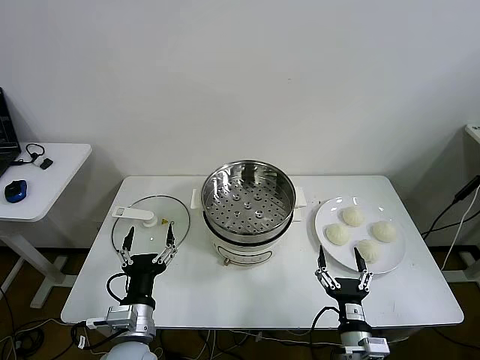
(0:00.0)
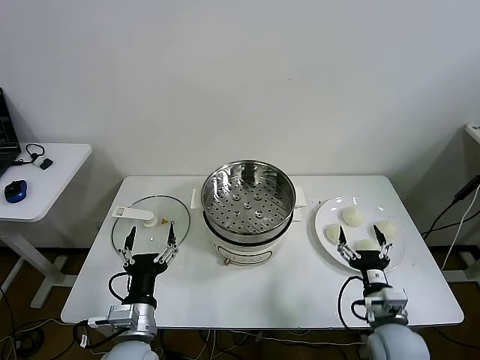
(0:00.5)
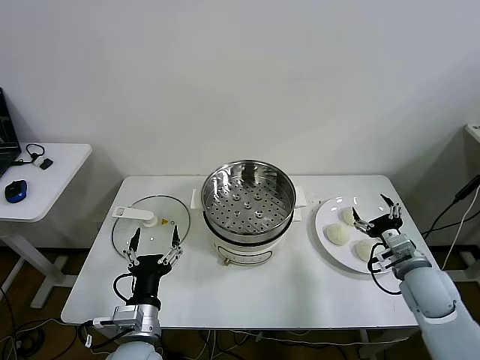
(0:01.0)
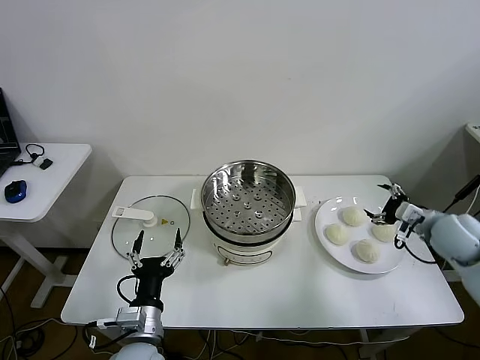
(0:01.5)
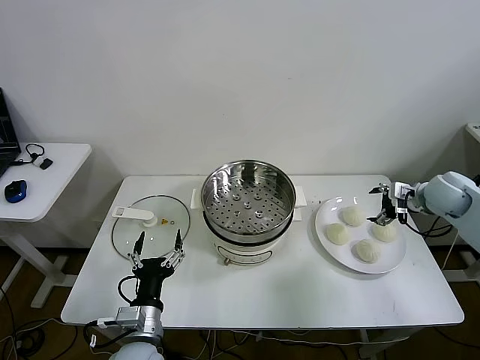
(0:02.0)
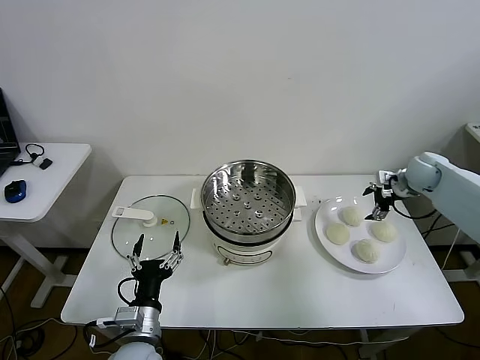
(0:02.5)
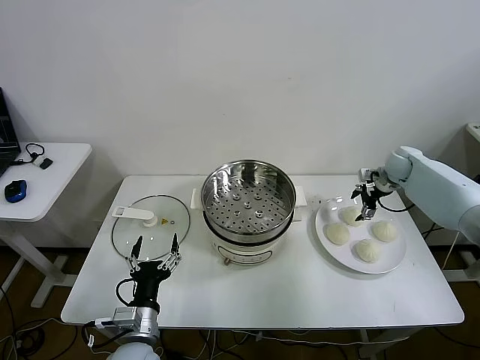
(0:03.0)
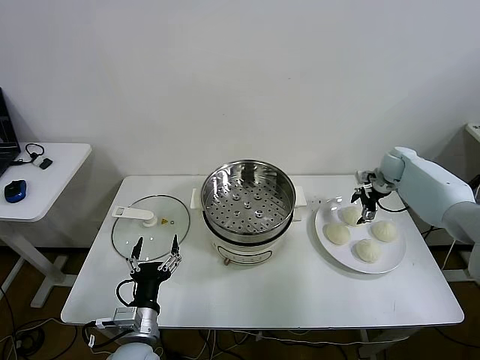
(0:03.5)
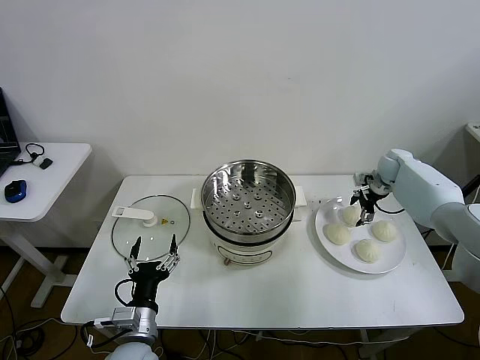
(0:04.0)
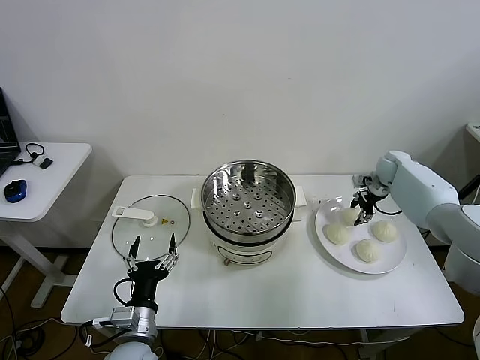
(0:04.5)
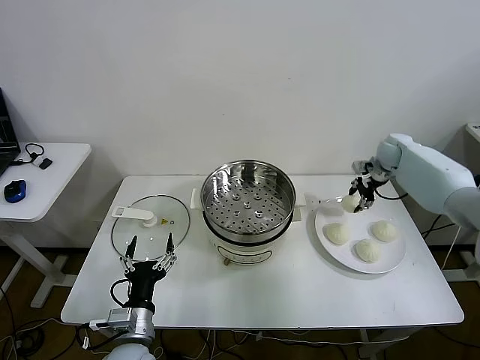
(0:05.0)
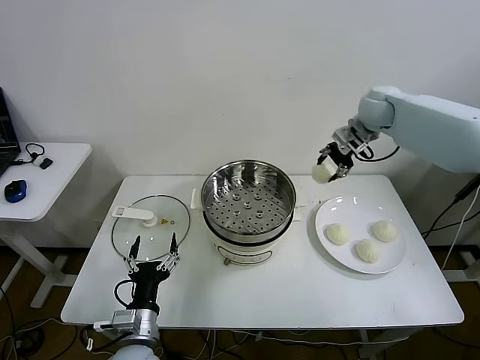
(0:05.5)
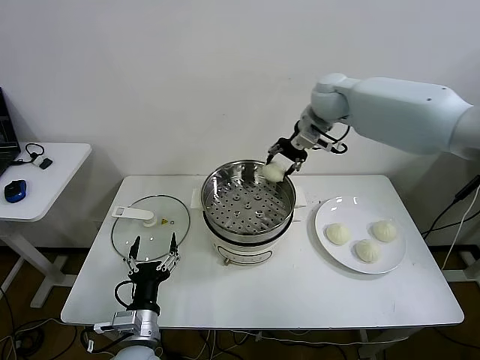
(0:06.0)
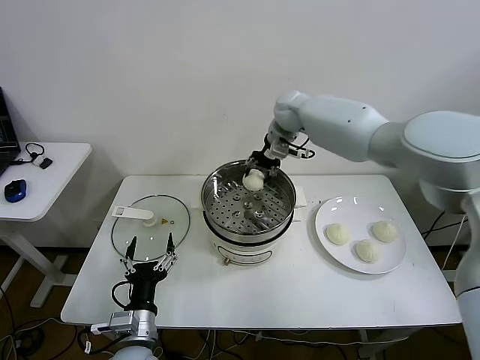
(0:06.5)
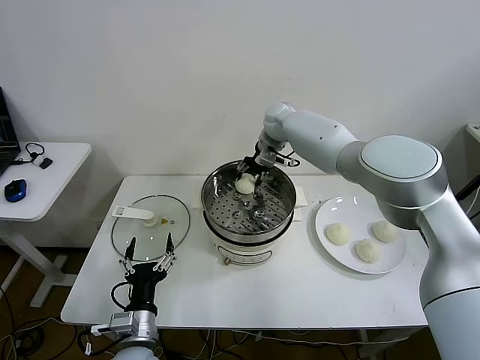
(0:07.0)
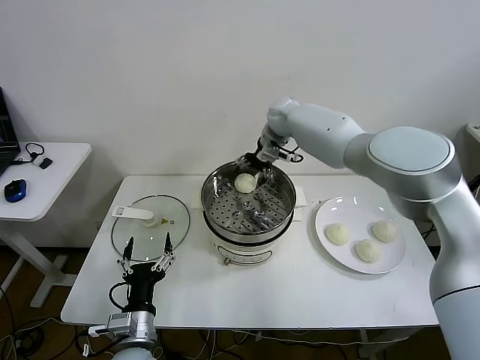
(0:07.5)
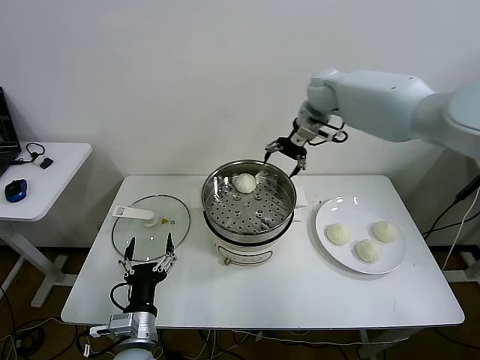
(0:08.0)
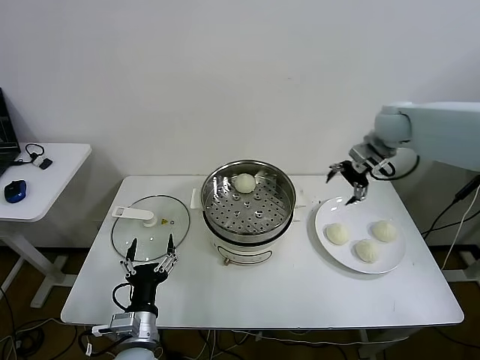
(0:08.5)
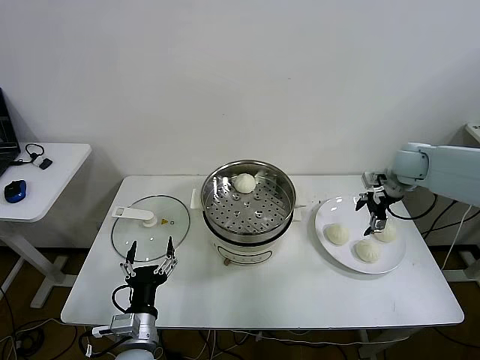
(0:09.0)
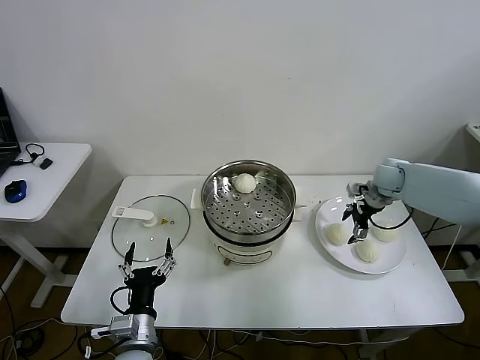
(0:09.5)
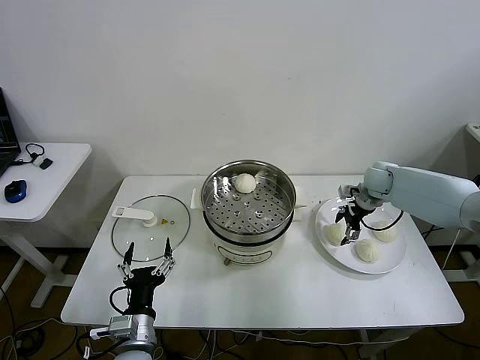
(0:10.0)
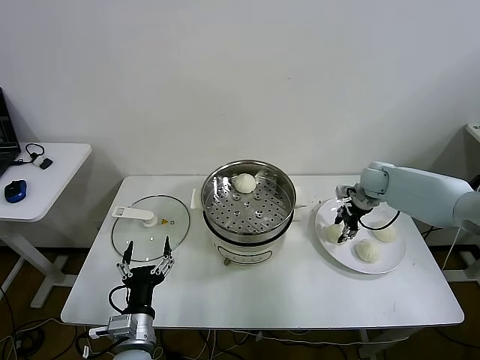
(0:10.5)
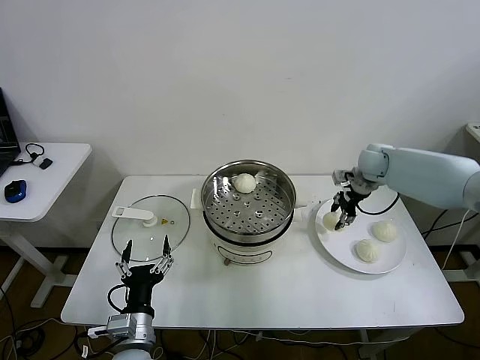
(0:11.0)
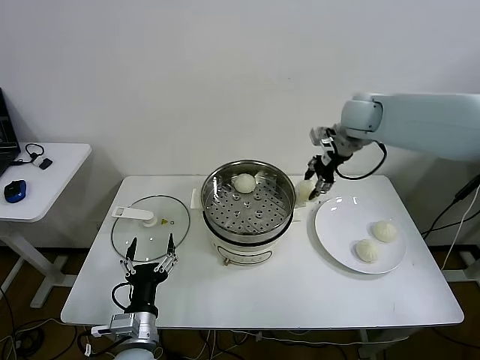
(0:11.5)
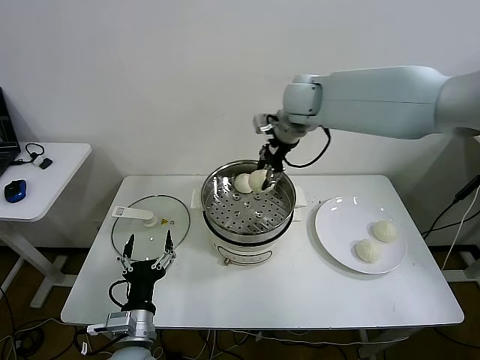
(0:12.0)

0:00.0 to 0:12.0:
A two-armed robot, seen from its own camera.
Step, 0:00.0 to 0:04.5: Grasp the baozi in the plate with right gripper.
Step, 0:05.0 to 0:07.5: Place the baozi on the steamer with right gripper.
Step, 0:08.0 to 0:10.5: Grasp the baozi in the plate with right gripper.
0:02.0 to 0:04.0: The right gripper goes approximately 15 cm forward.
0:04.0 to 0:06.0: The right gripper goes about 30 cm to the left and upward, and closes.
0:06.0 to 0:08.0: The right gripper moves roughly 10 cm downward and comes back, and opens its fingers.
0:08.0 to 0:10.0: The right gripper heads downward and to the right, covering about 30 cm.
0:10.0 to 0:12.0: The right gripper travels to the left and upward by about 35 cm, and closes up.

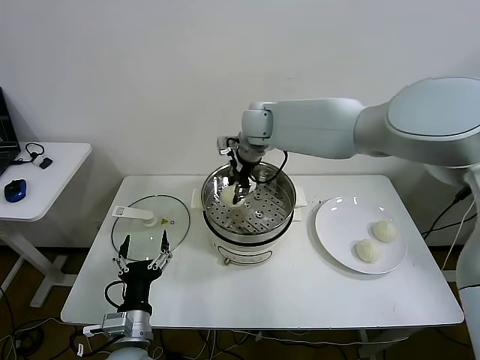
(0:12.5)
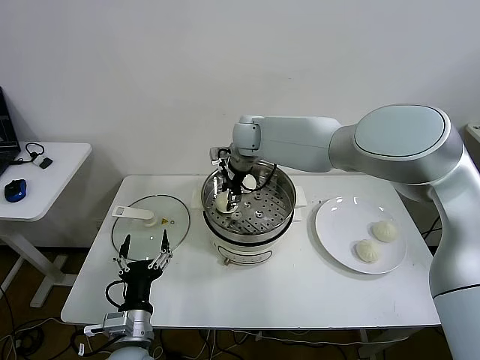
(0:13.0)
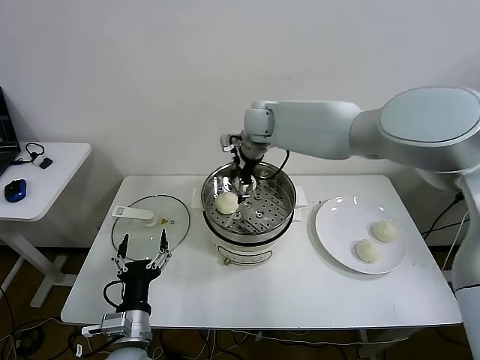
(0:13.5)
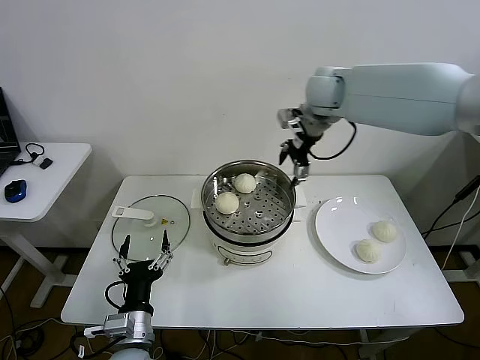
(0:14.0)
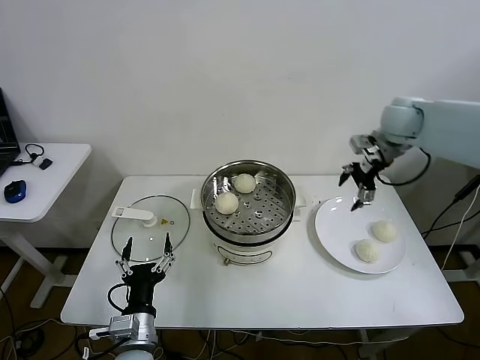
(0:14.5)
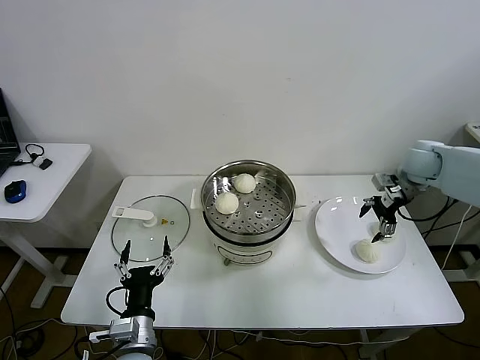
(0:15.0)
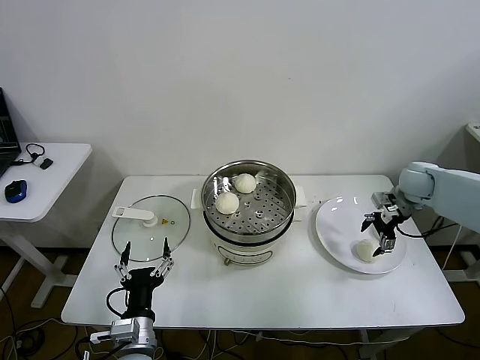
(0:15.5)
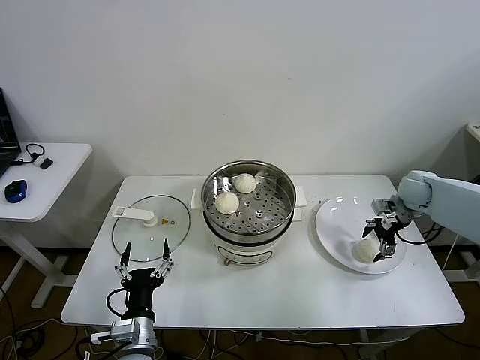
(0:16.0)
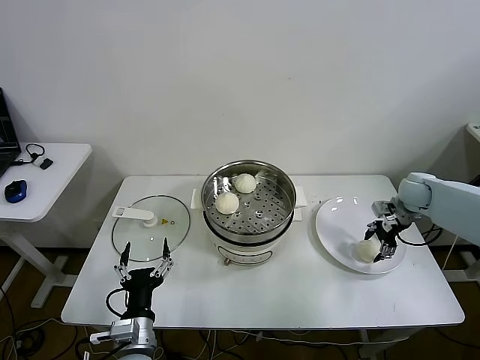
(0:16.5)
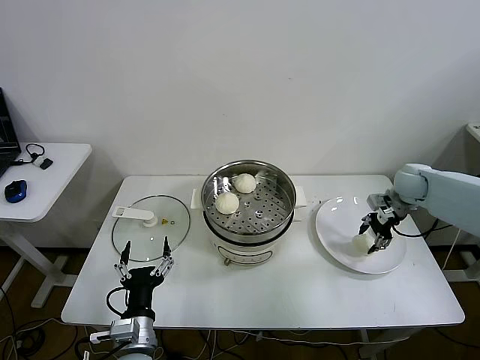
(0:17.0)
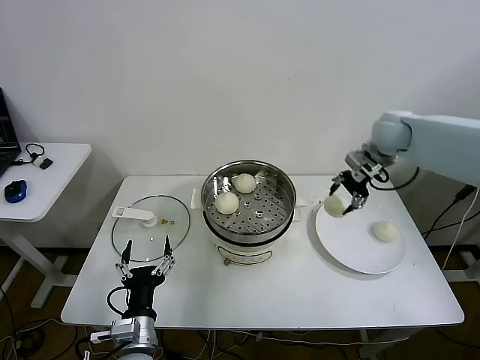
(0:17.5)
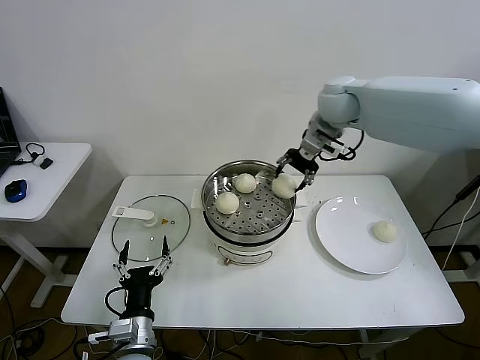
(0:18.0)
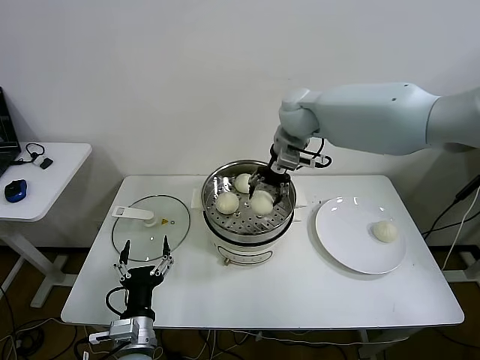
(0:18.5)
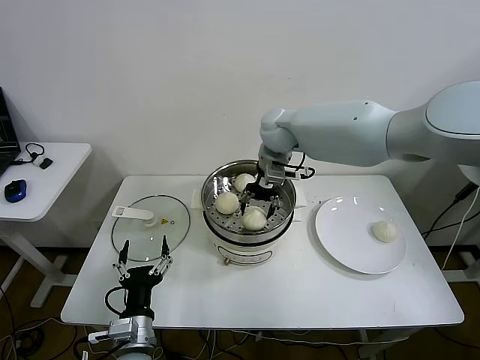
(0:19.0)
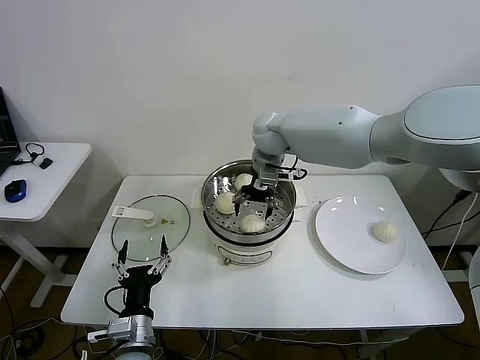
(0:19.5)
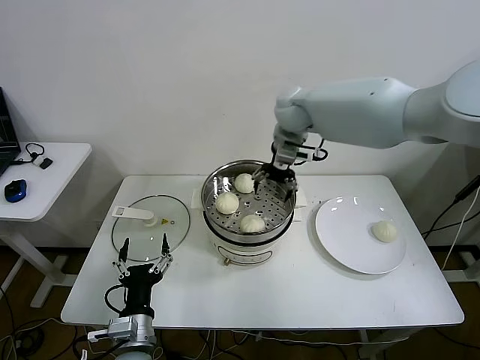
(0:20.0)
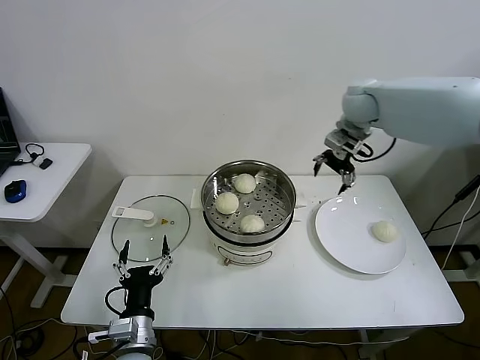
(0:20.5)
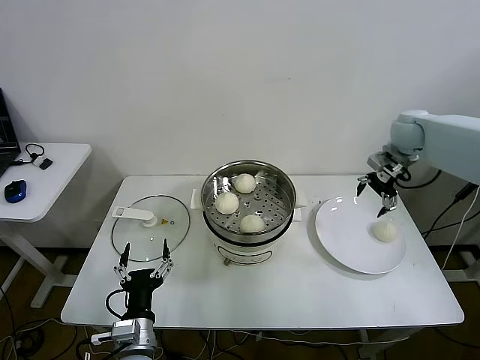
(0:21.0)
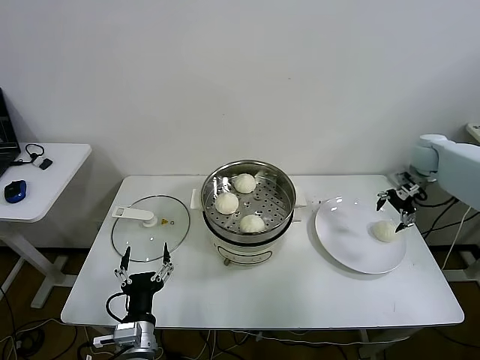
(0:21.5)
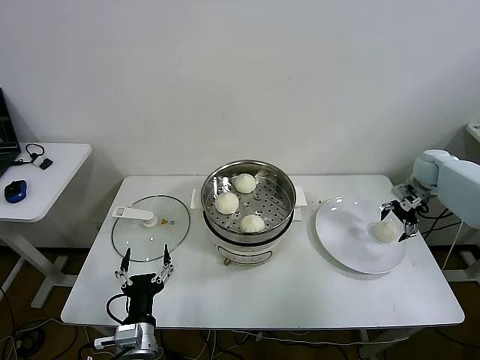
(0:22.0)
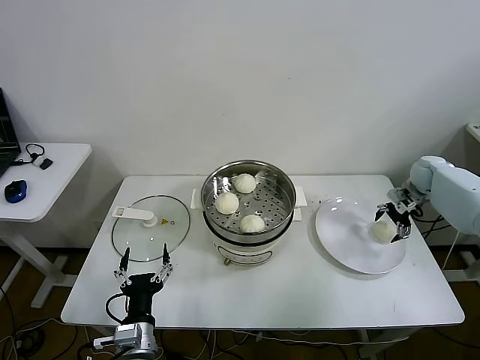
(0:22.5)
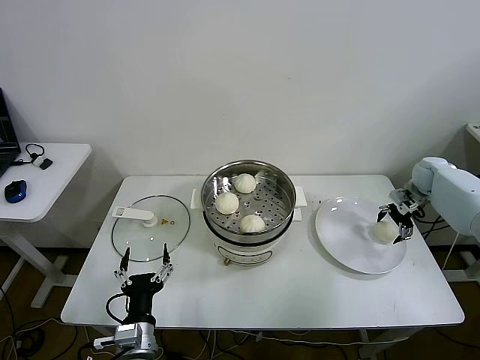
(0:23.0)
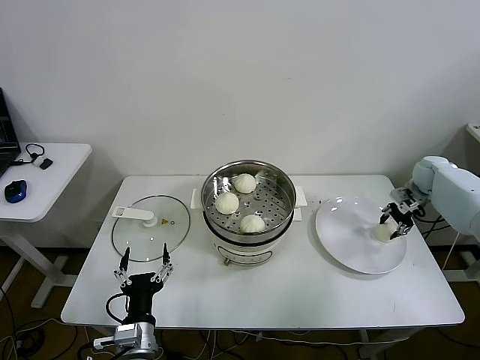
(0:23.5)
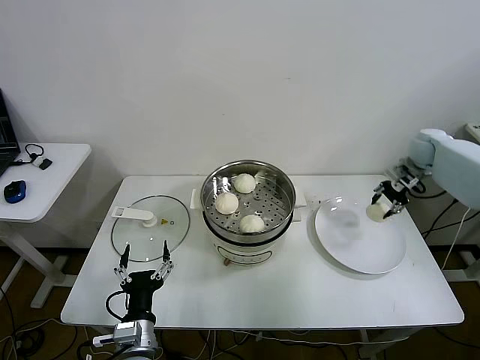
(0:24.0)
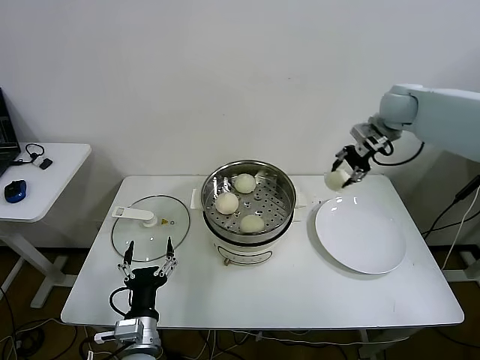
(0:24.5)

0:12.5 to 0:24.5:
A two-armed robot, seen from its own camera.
Step, 0:13.5 to 0:16.5: Grasp the baozi in the plate with right gripper.
Step, 0:17.0 to 0:19.5: Place the baozi on the steamer with right gripper.
Step, 0:20.0 to 0:23.0: Grasp the baozi in the plate with right gripper.
0:12.5 to 0:14.5: The right gripper shifts roughly 30 cm to the right, and opens.
0:14.5 to 0:16.5: The right gripper shifts approximately 20 cm downward and to the right.
0:16.5 to 0:18.5: The right gripper goes some 40 cm to the left and upward.
0:18.5 to 0:20.5: The right gripper goes approximately 15 cm to the right, and opens up.
0:20.5 to 0:22.5: The right gripper travels to the right and downward by some 30 cm.
0:22.5 to 0:24.5: The right gripper travels upward and to the left by some 25 cm, and closes.

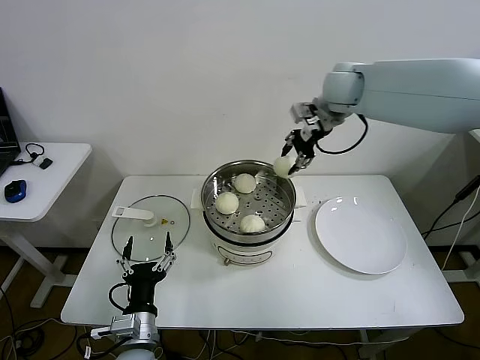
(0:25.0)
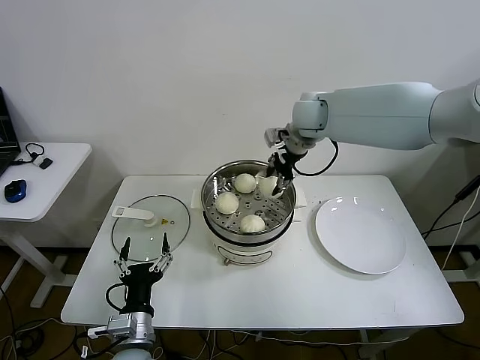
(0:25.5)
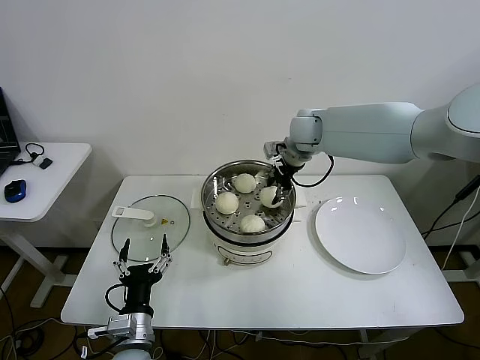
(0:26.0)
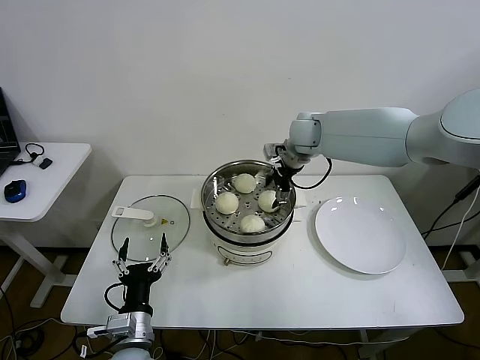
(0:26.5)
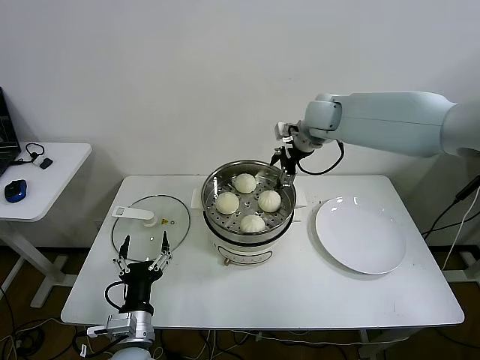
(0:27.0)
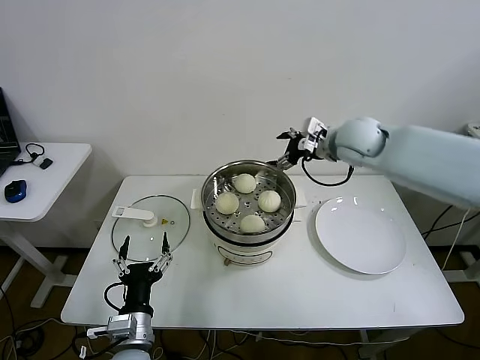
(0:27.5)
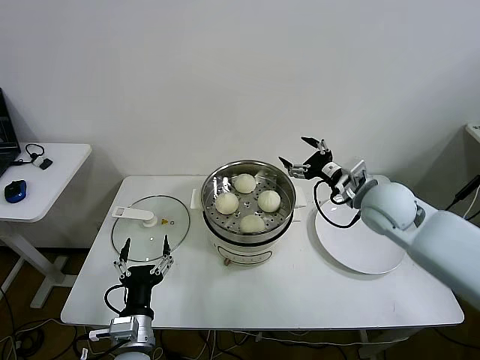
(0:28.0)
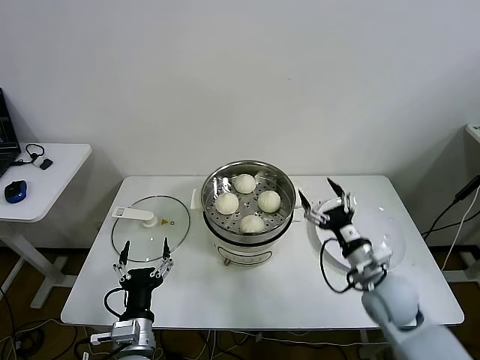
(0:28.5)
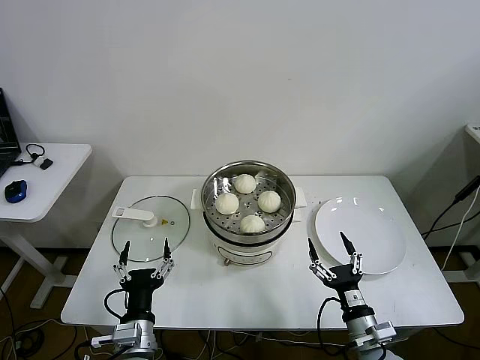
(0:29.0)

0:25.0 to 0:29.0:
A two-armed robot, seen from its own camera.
0:25.0 to 0:27.0: The right gripper heads downward, covering some 10 cm, and opens.
0:27.0 to 0:29.0: The right gripper shifts approximately 50 cm backward and downward.
